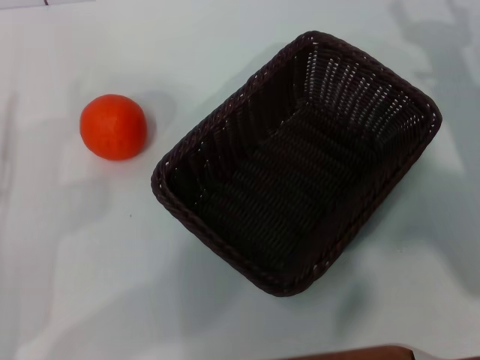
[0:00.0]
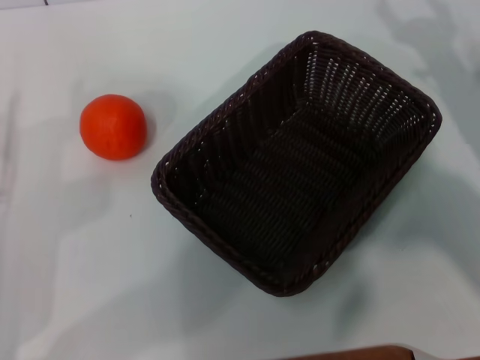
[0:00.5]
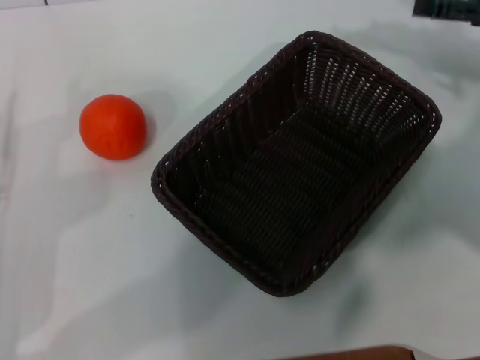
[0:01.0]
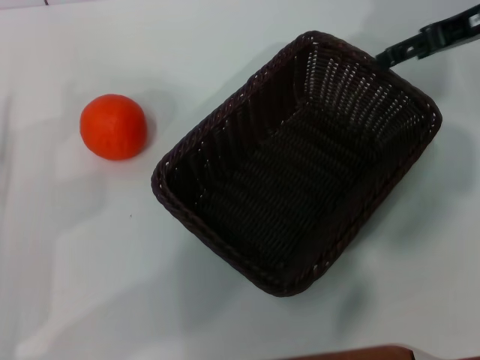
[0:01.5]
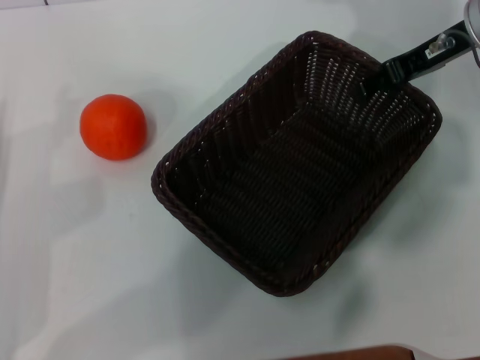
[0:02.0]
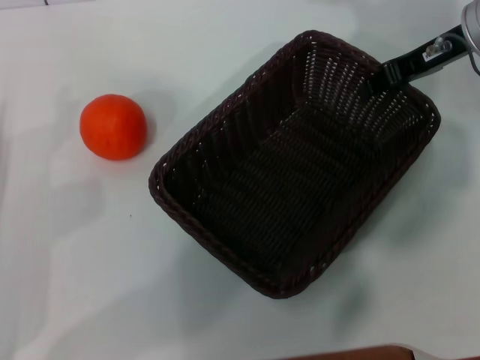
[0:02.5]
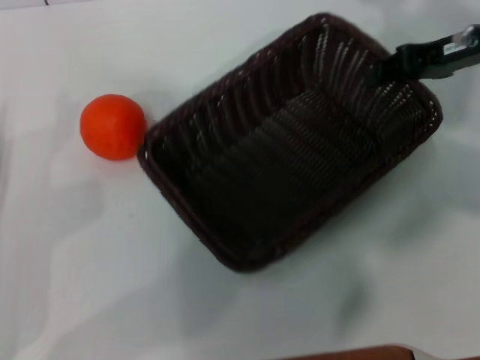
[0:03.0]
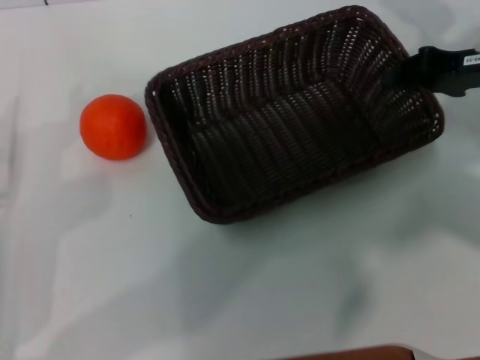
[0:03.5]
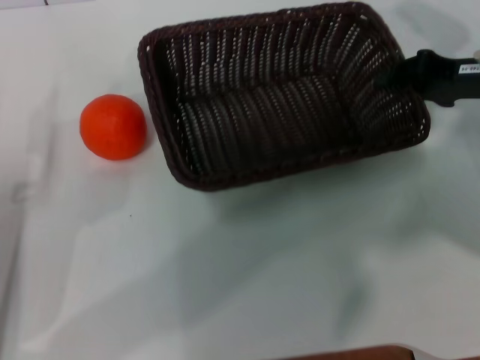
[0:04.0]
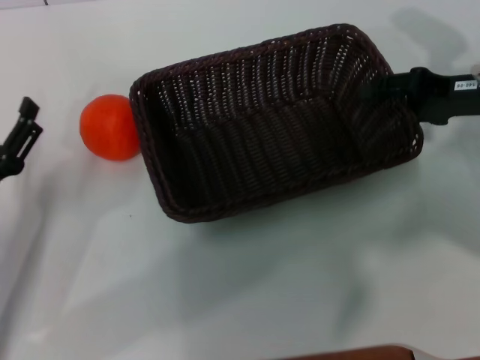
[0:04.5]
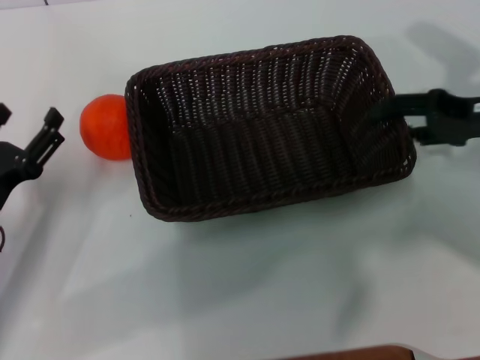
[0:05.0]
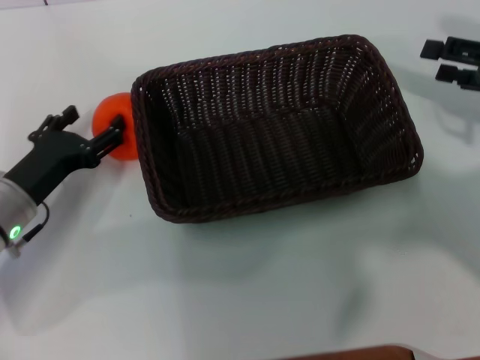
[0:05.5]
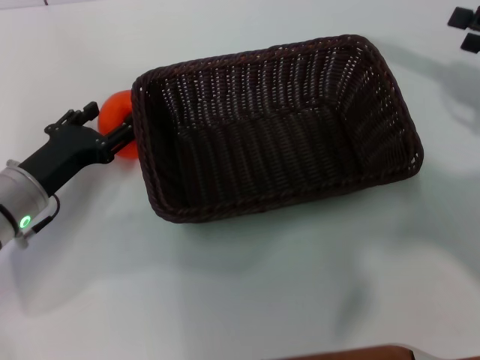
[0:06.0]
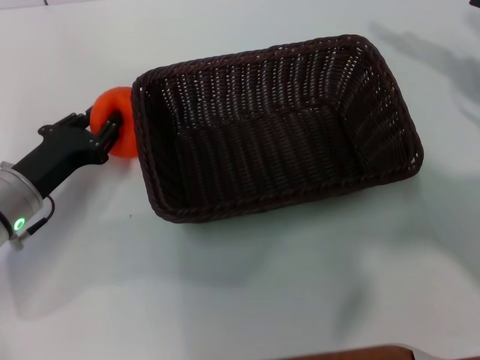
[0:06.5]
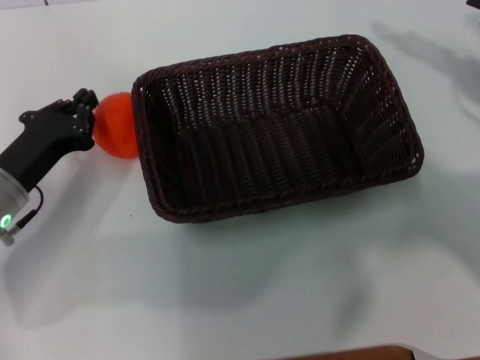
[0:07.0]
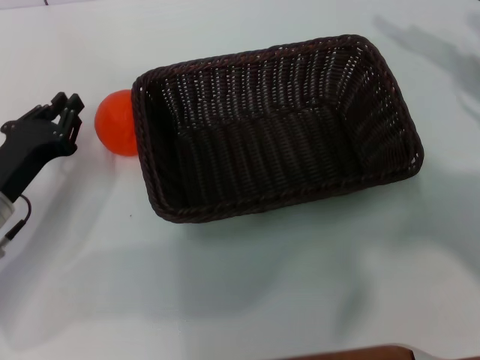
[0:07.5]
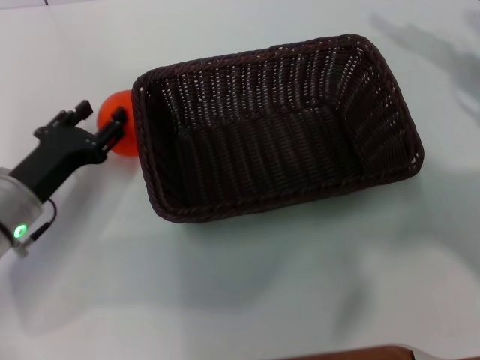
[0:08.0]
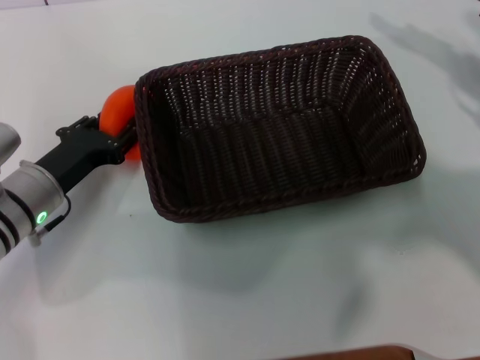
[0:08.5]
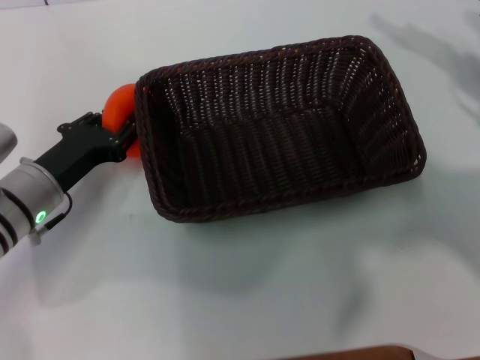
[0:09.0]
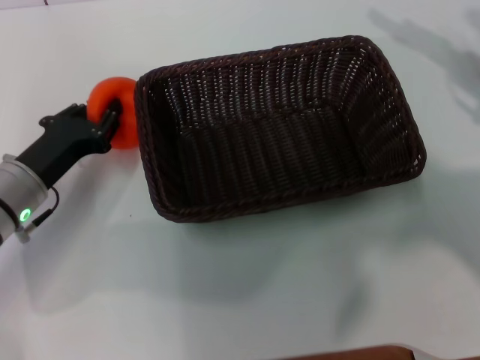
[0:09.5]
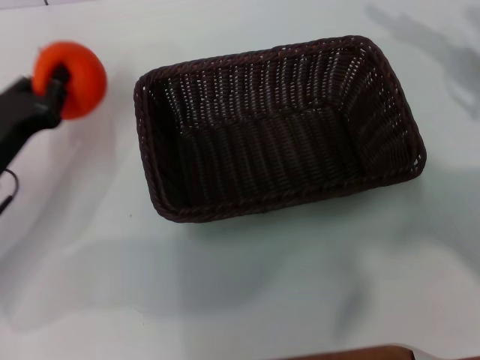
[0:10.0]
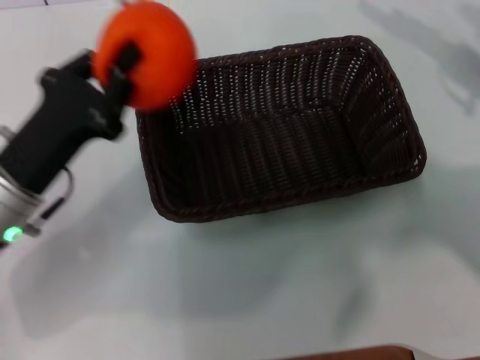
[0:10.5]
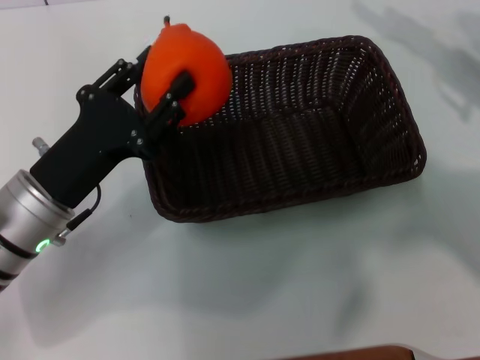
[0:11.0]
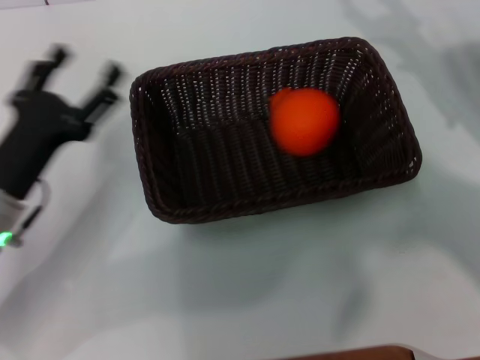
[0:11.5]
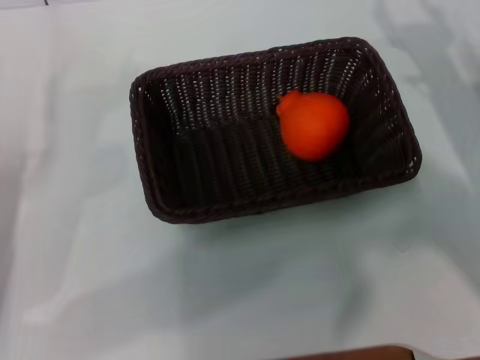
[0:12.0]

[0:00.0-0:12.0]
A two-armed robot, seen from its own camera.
Task of the whole recording: the right gripper pick up the black basket and place it horizontally in the middle of the table, the left gripper pick up the orange and place it into the black basket.
Step, 0:00.0 to 0:03.0: Pick up the dark basket with the right gripper.
Step, 0:03.5 to 0:05.0: Place the dark basket in the center of view with the right gripper.
Step, 0:05.5 to 0:09.5: Pick up the orange with the left gripper.
Step, 0:10.0 to 0:11.0: Place the orange into the dark basket with the left gripper.
0:00.0 to 0:02.0: The right gripper goes roughly 15 cm forward, upward and to the left.
0:02.0 to 0:04.0: The right gripper heads downward, backward and to the right, covering roughly 10 cm, and closes.
0:04.0 to 0:06.0: The right gripper is displaced to the right by approximately 5 cm, and opens up; the left gripper travels forward by some 10 cm.
0:06.0 to 0:08.0: The left gripper closes.
0:08.0 to 0:10.0: The grippers stay close to where they were, moving slightly.
0:10.0 to 0:12.0: The left gripper travels backward by approximately 5 cm, moves approximately 5 cm to the right and comes back, and opens, while the right gripper goes some 10 cm downward and to the left.
